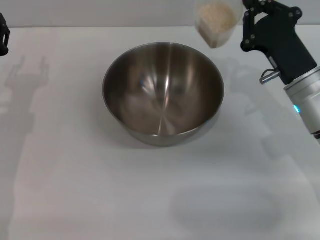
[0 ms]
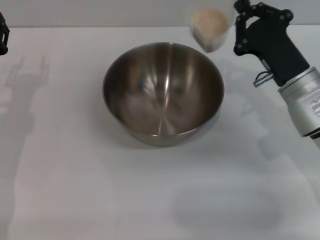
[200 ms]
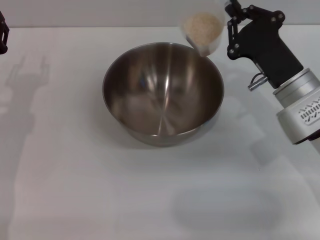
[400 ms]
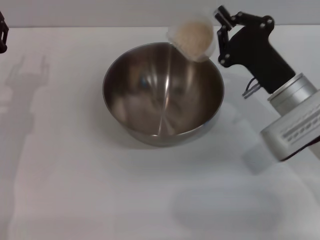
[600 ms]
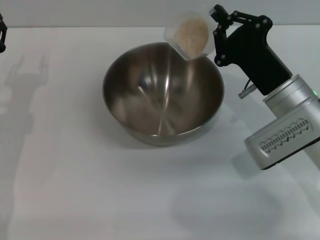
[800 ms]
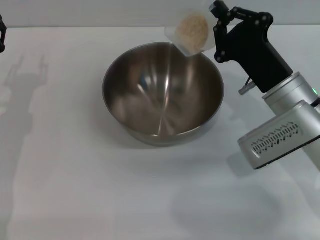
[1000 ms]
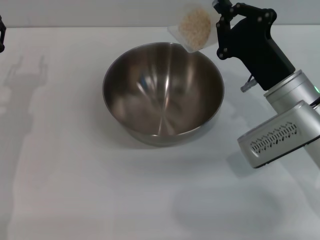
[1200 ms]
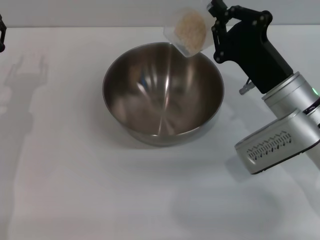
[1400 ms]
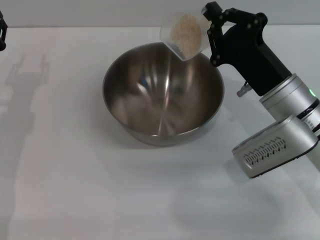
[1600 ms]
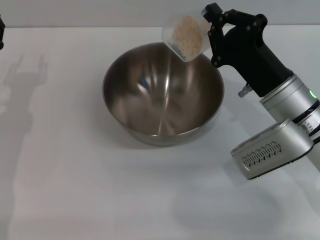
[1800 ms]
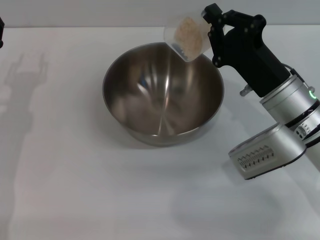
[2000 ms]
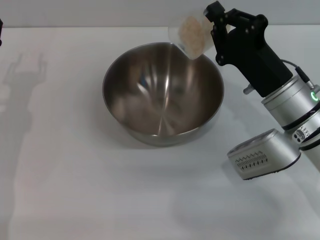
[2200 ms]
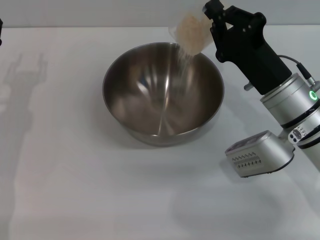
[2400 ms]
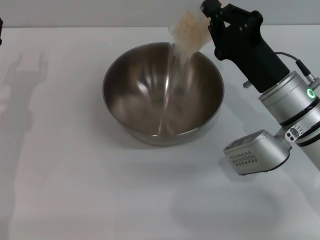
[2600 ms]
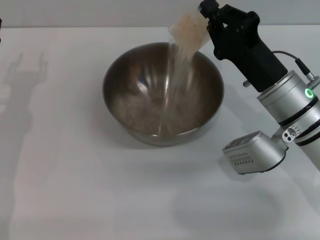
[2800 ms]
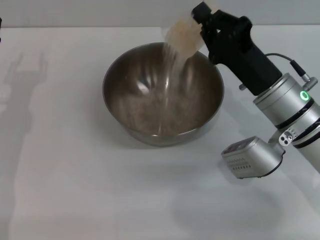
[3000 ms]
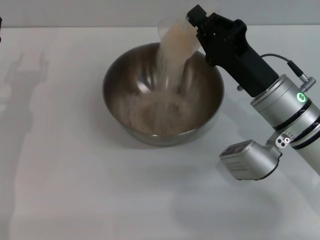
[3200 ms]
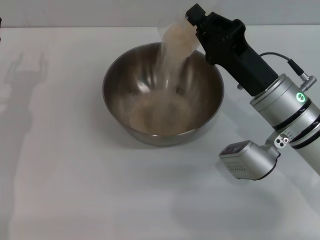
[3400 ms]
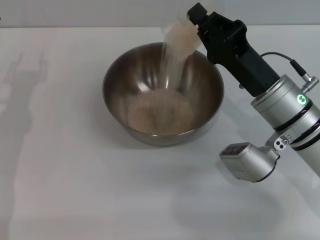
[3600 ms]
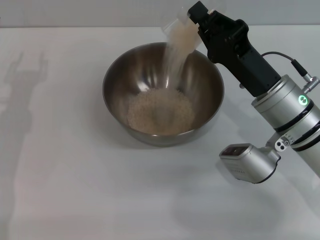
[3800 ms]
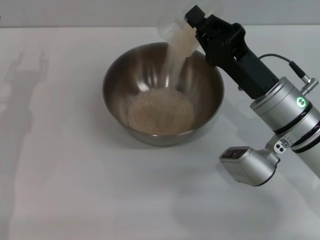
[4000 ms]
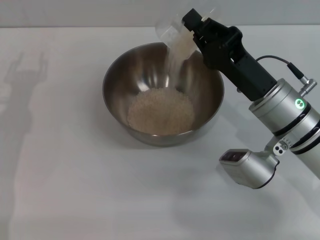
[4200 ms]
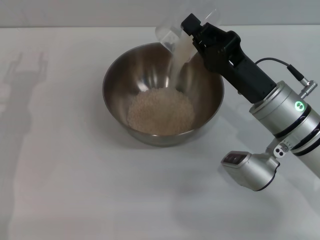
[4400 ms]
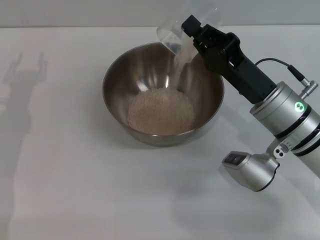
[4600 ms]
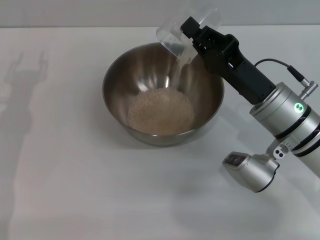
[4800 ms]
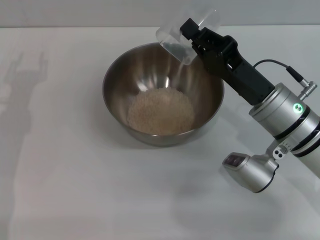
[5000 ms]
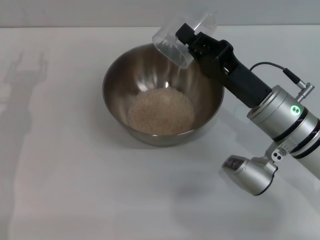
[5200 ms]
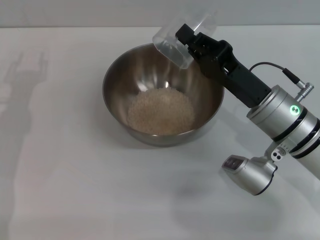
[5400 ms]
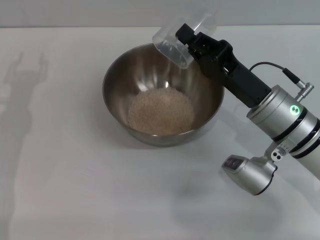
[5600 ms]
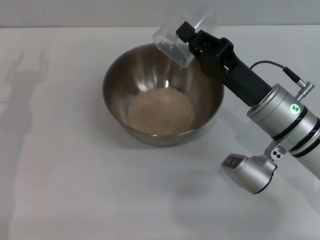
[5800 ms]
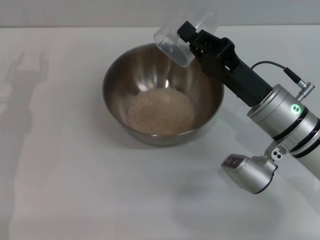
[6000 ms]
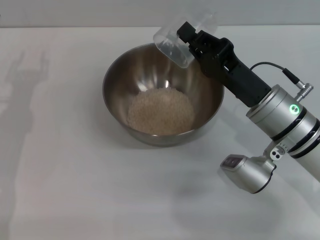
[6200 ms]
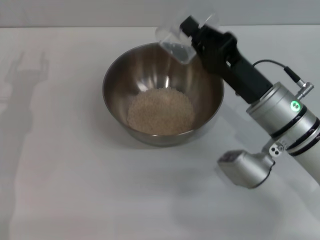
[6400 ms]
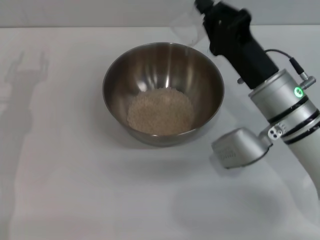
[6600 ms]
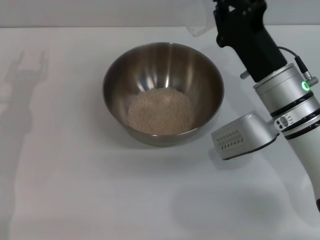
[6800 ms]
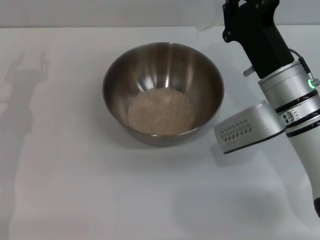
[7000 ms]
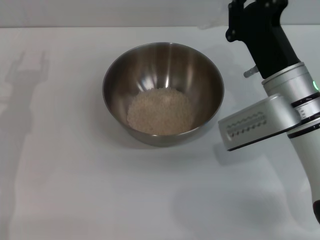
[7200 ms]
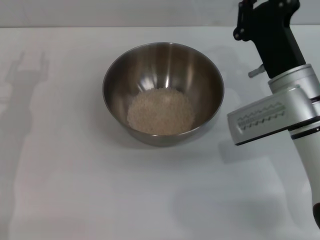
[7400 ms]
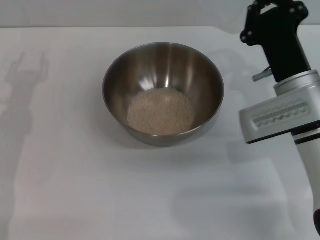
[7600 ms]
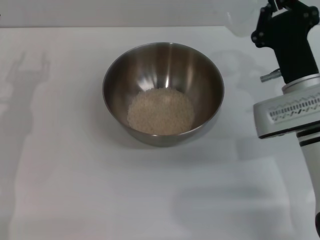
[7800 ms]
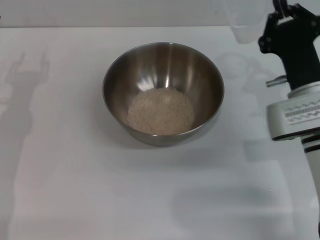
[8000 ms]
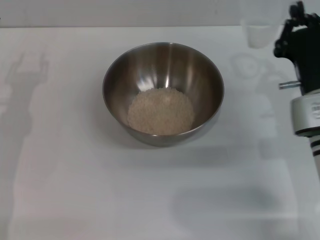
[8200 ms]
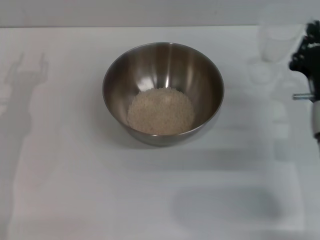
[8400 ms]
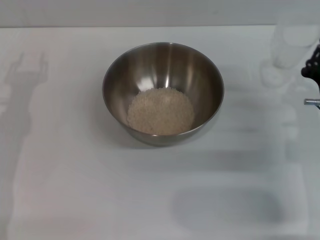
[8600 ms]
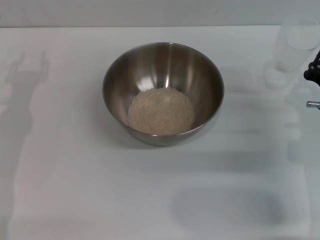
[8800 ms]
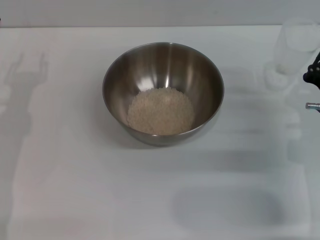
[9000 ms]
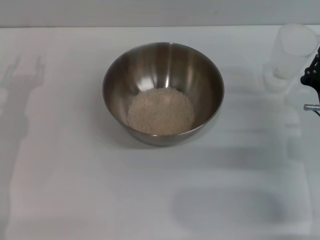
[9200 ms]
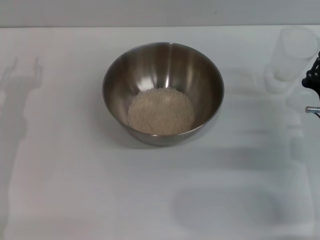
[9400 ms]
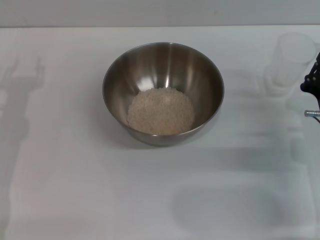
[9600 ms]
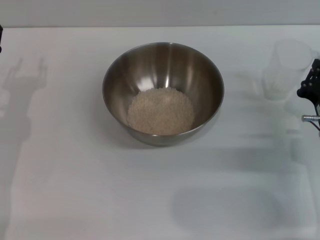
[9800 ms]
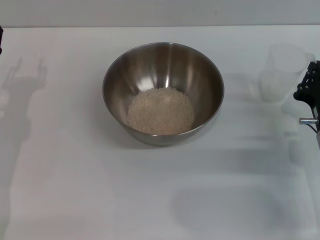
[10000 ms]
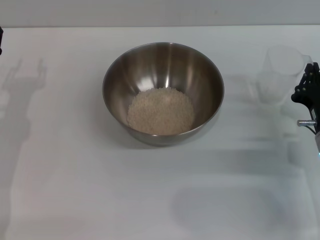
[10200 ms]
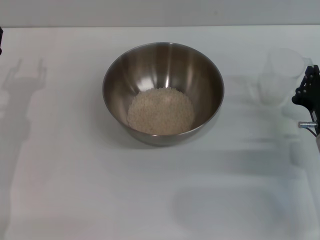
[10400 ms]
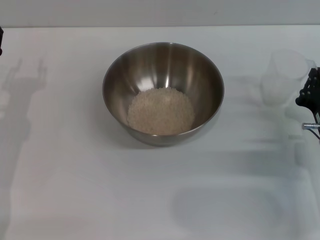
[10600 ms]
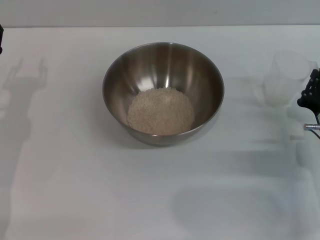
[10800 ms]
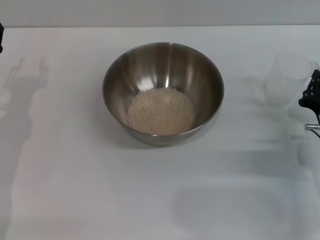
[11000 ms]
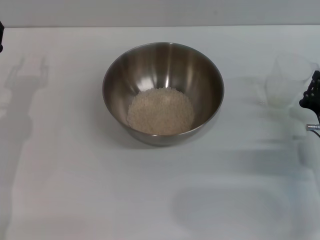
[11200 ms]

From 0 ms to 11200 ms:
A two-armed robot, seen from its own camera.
Task of the whole recording: Place the bowl in the middle of the table with one hand and pour the rice from the grain cup into it with the other hand.
Step, from 0 ms to 5000 ms: Pour the rice from the cup into the bowl with the right gripper.
From 3200 ms to 6400 ms: The grippers make only small movements.
From 8000 ms to 9600 ms: The right gripper goes some 5 cm to the right and downward.
From 9600 ms to 11200 ms: There are only small adjustments of the grippers.

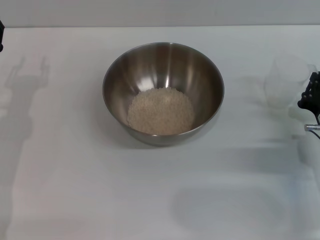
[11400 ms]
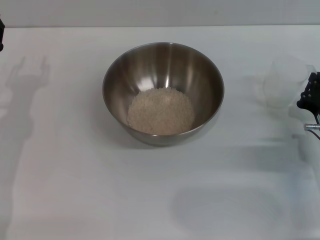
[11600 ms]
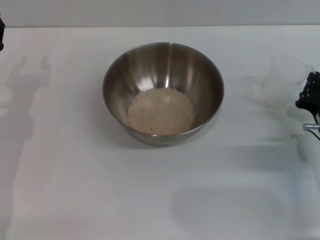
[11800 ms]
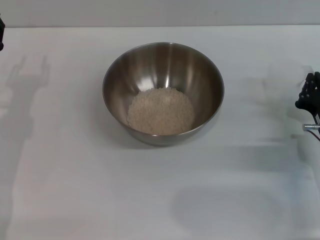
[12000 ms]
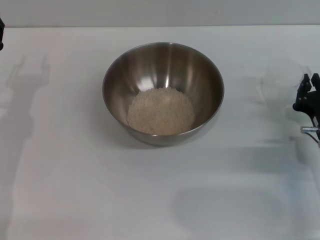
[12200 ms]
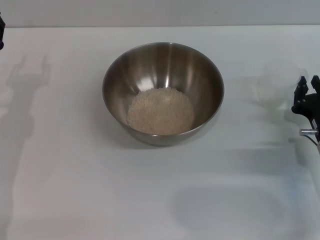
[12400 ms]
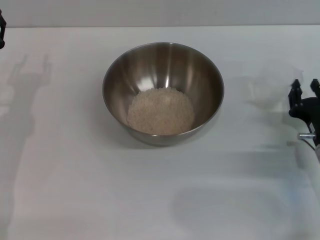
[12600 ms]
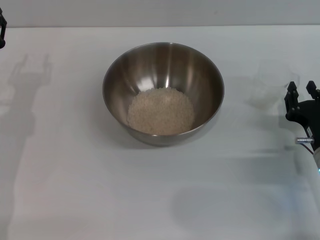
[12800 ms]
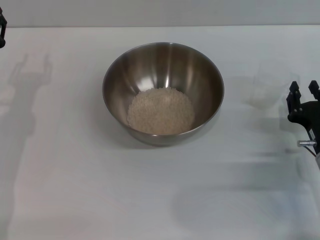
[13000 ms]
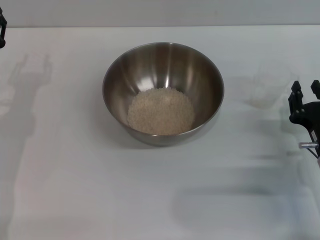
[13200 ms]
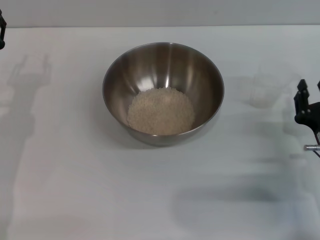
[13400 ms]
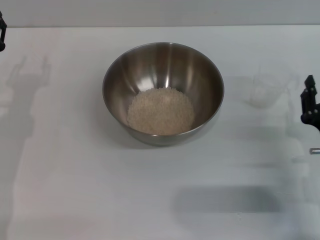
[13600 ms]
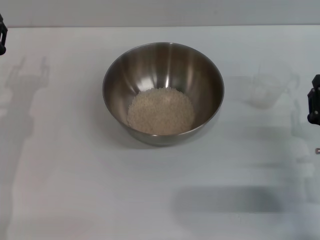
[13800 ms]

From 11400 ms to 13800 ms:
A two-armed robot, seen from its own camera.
Task of the whole recording: Place the bowl in the middle of the table with one hand and pour the rice from the grain cup into it with the other hand.
From 11400 ms to 12600 ms: The right gripper opens up.
From 12600 ms to 13800 ms: There are only small adjustments of the grippers.
